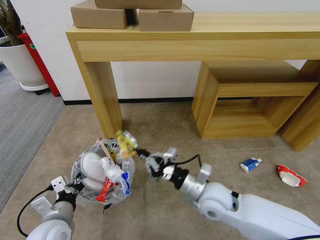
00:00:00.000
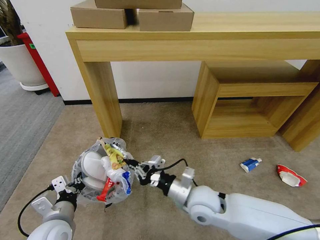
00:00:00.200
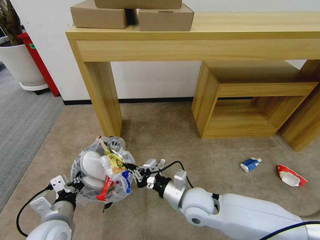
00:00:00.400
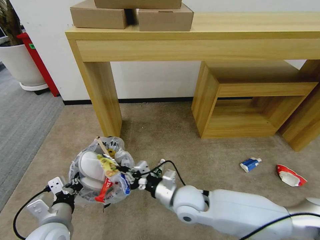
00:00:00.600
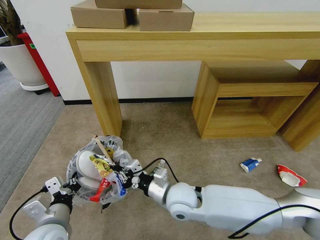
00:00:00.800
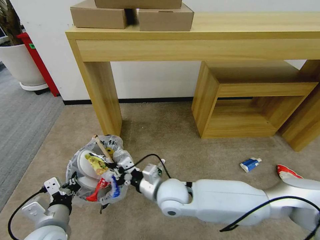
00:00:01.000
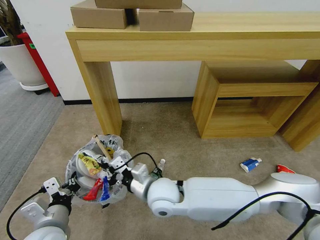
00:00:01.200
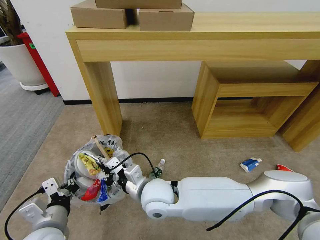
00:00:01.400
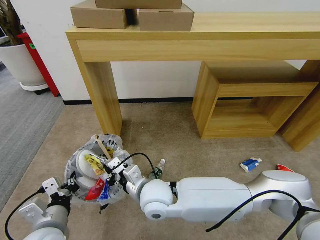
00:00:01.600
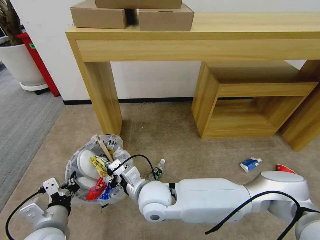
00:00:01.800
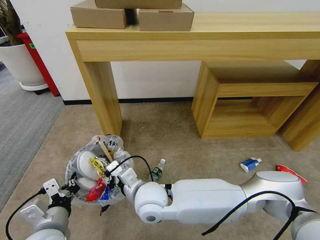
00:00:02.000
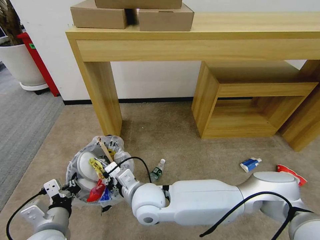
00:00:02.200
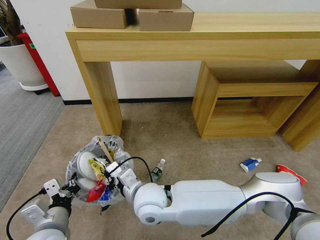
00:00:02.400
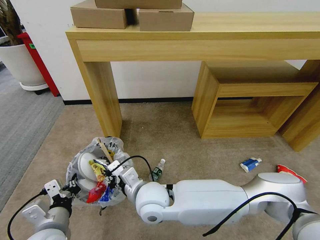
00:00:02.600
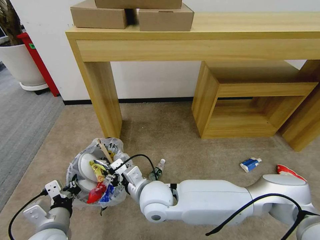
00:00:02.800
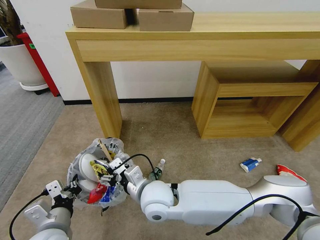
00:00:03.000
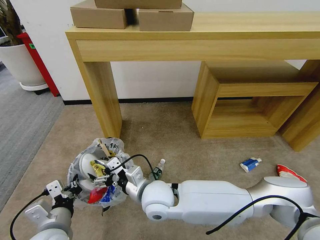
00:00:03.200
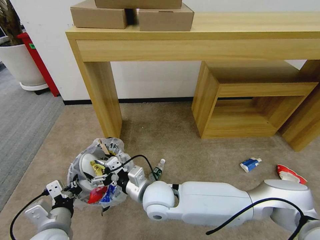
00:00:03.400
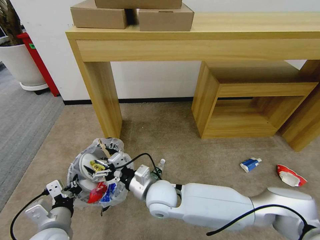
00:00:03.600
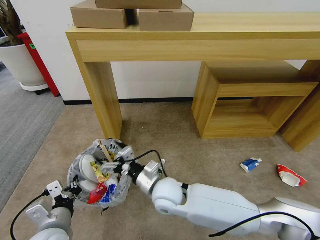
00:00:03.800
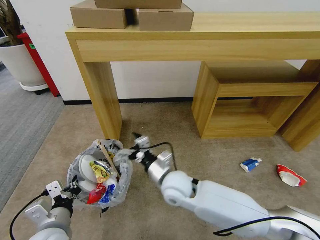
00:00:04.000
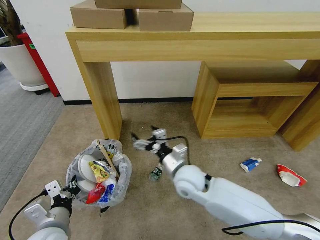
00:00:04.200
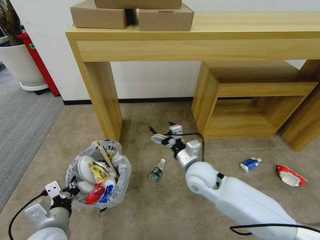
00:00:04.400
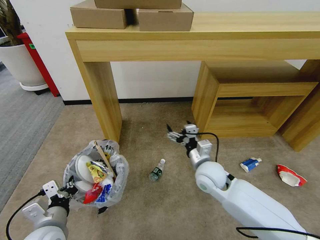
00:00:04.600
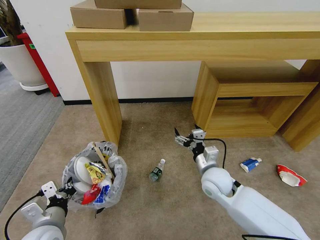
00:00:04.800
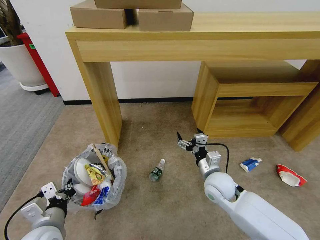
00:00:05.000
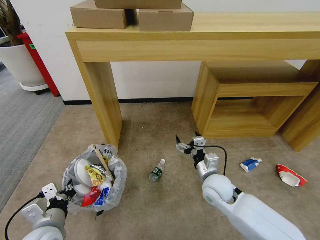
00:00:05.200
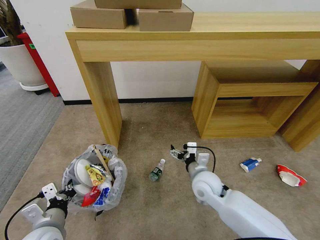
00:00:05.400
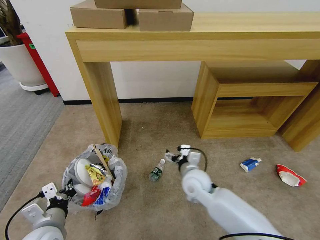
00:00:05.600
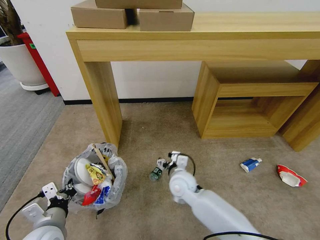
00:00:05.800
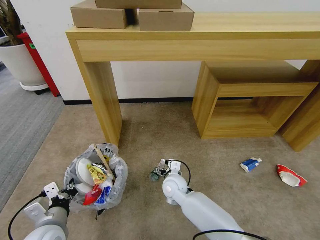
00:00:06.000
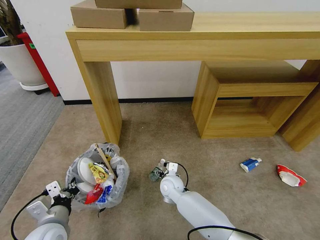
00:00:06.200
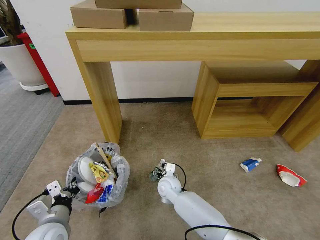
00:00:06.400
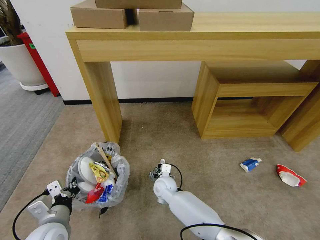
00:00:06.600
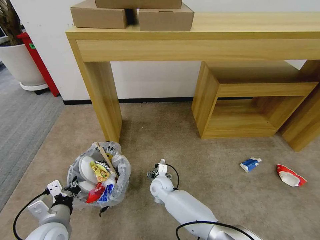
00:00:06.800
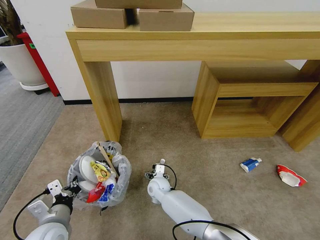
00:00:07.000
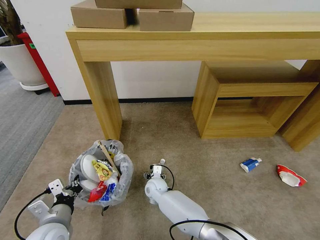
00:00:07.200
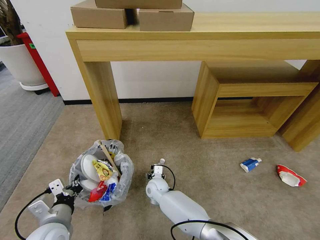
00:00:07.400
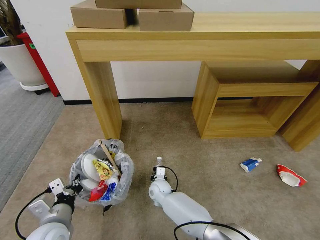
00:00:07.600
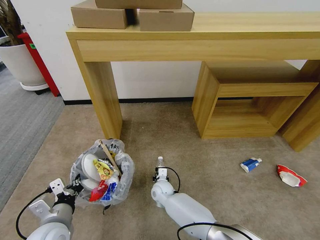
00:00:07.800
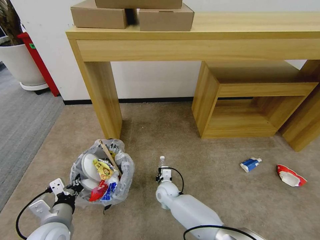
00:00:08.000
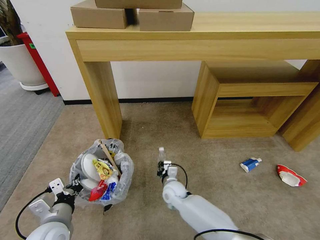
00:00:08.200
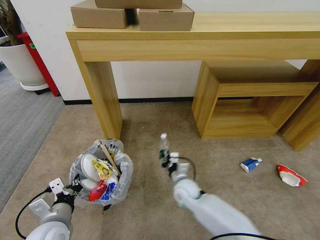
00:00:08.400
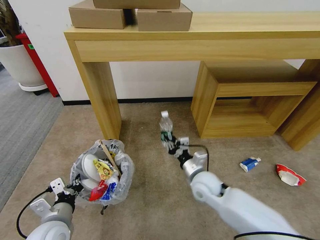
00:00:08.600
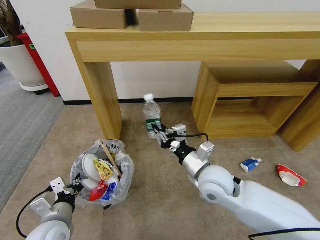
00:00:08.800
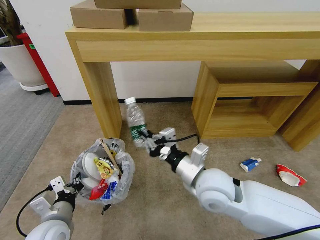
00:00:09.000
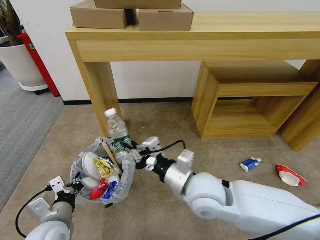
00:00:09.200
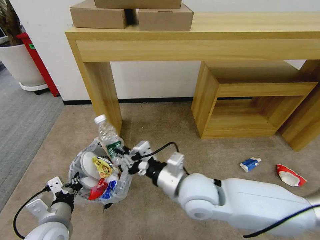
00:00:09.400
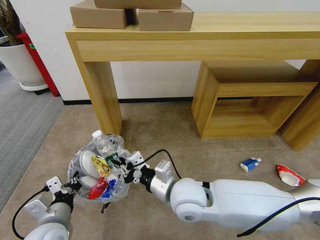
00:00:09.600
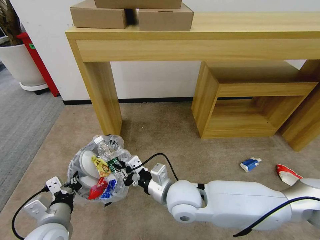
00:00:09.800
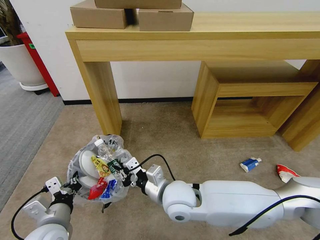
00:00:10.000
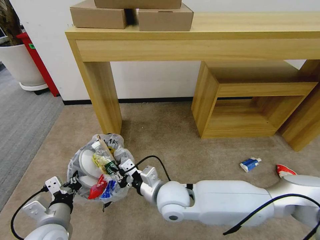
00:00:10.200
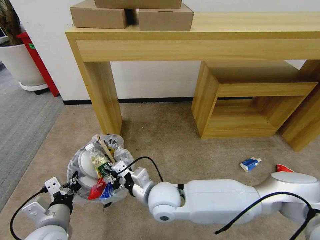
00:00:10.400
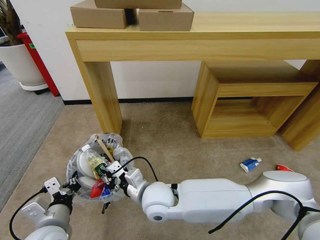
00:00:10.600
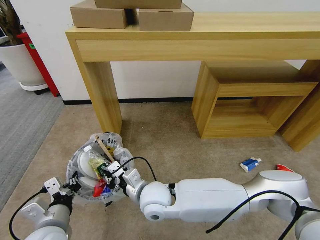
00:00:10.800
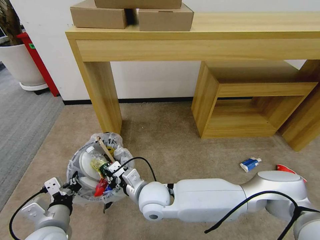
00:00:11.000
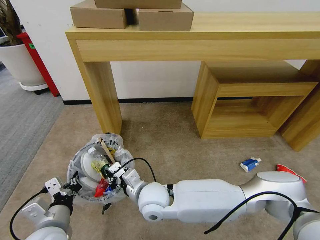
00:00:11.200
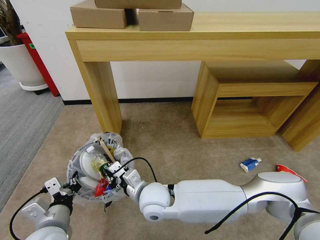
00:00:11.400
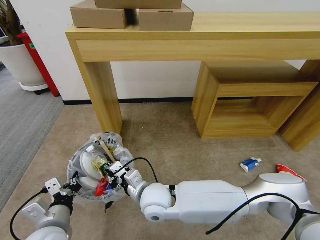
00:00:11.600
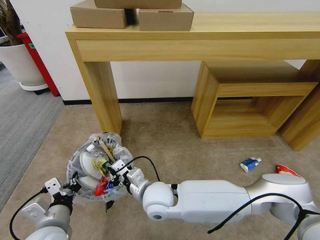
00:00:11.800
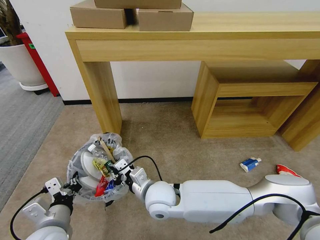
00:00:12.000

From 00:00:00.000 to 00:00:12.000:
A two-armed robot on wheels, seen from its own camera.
Task of the whole recording: Pick up the trash bin and place the garbage on the floor into it.
From 00:00:00.000 to 00:00:01.600: The right gripper moves to the left, about 15 cm.
From 00:00:01.600 to 00:00:03.000: The right gripper opens its fingers.
From 00:00:03.000 to 00:00:04.400: The right gripper goes some 15 cm to the right and forward.
From 00:00:04.400 to 00:00:06.000: The right gripper moves downward and to the left, some 15 cm.
From 00:00:06.000 to 00:00:07.600: The right gripper heads downward and to the left, covering about 10 cm, and closes its fingers.
From 00:00:07.600 to 00:00:09.000: The right gripper goes about 30 cm upward and to the right, and closes up.
From 00:00:09.000 to 00:00:10.400: The right gripper travels to the left and downward by some 15 cm.
From 00:00:10.400 to 00:00:12.000: The grippers stay close to where they were, moving slightly.

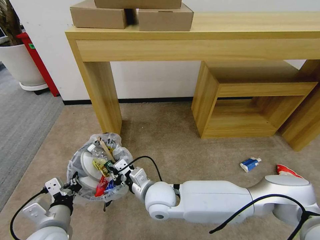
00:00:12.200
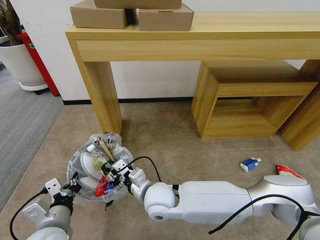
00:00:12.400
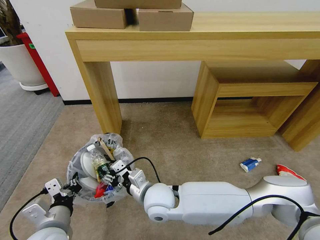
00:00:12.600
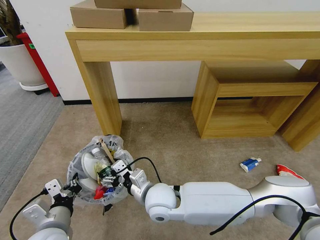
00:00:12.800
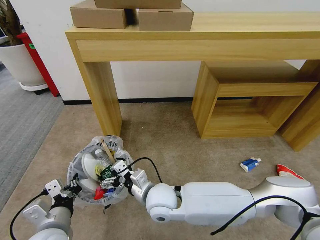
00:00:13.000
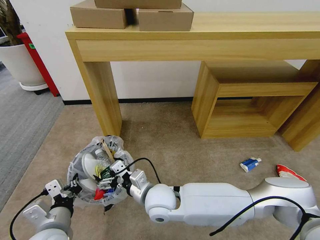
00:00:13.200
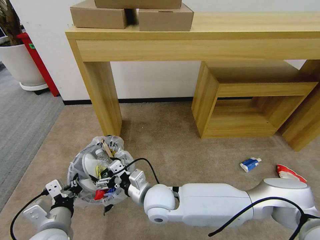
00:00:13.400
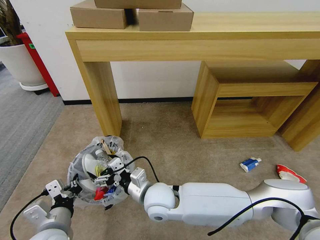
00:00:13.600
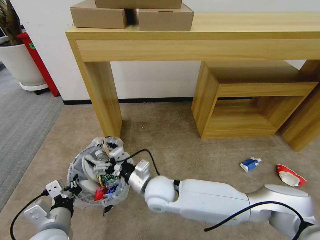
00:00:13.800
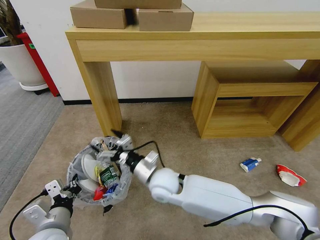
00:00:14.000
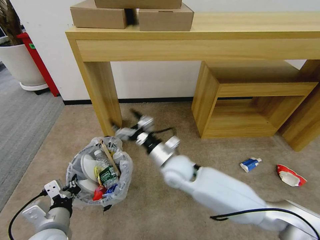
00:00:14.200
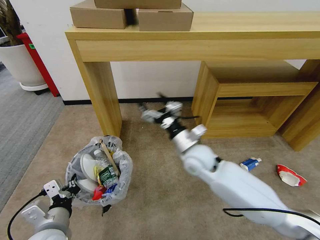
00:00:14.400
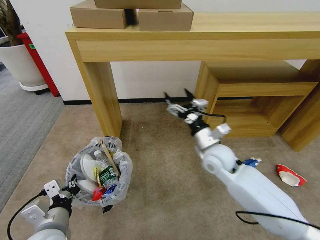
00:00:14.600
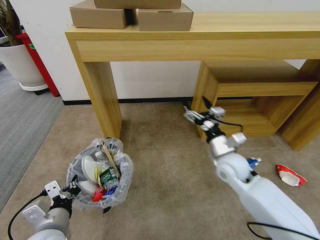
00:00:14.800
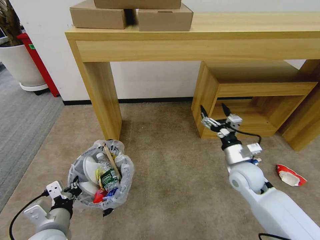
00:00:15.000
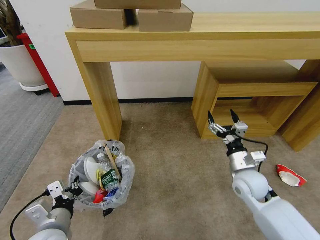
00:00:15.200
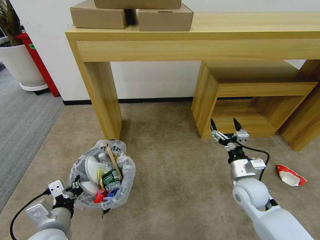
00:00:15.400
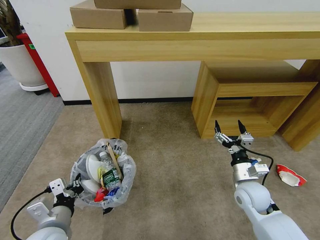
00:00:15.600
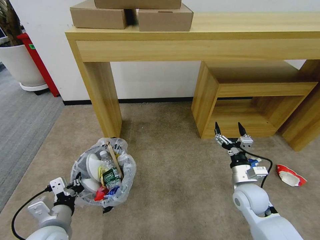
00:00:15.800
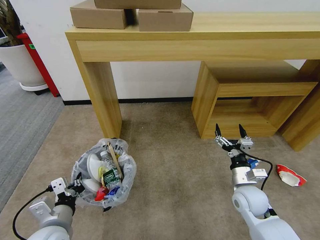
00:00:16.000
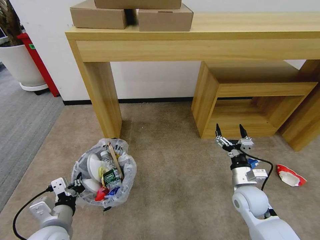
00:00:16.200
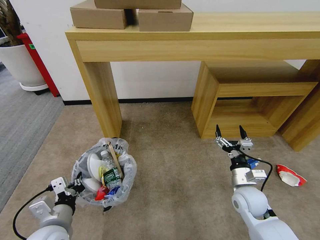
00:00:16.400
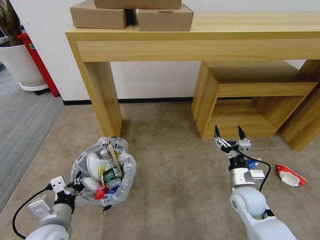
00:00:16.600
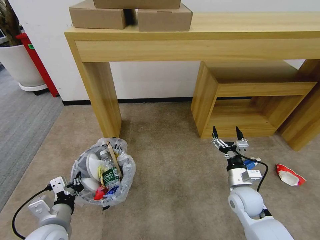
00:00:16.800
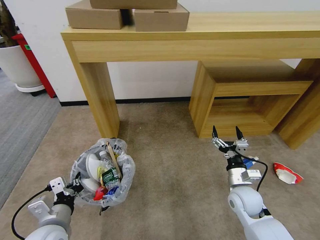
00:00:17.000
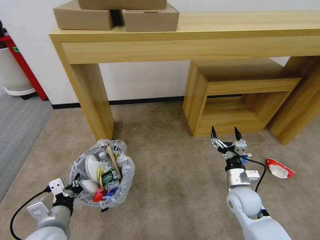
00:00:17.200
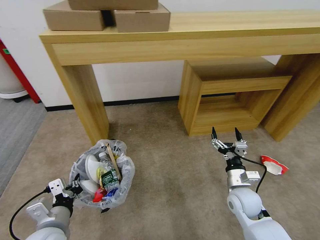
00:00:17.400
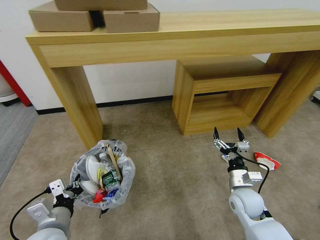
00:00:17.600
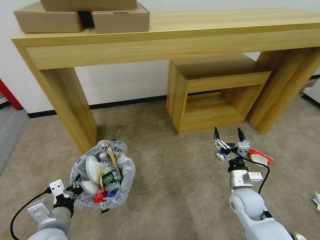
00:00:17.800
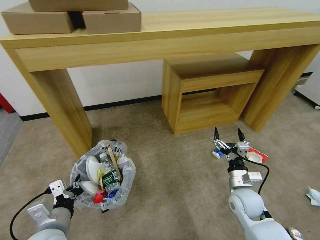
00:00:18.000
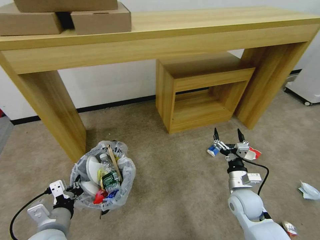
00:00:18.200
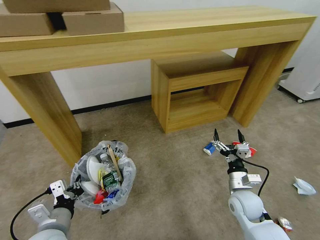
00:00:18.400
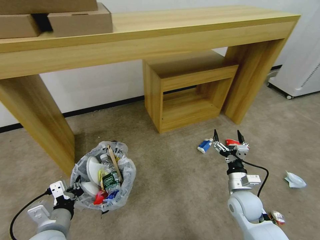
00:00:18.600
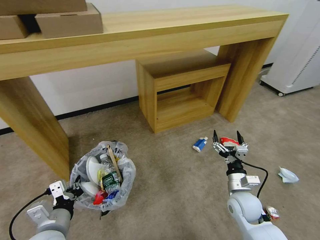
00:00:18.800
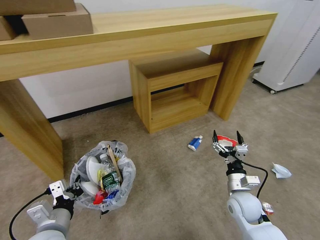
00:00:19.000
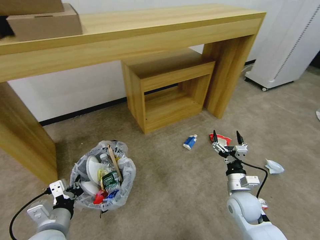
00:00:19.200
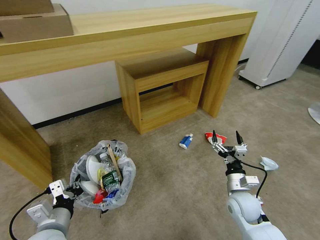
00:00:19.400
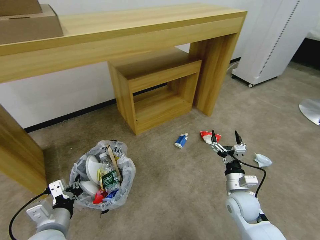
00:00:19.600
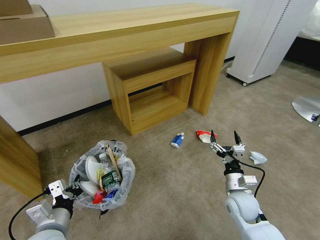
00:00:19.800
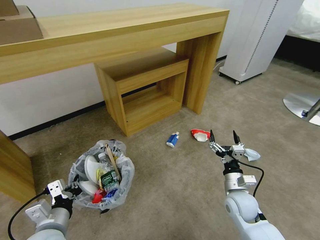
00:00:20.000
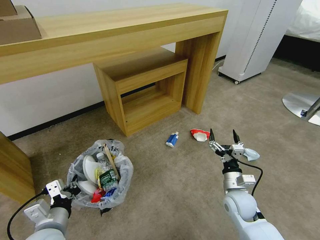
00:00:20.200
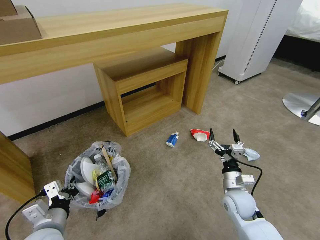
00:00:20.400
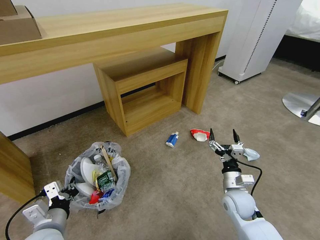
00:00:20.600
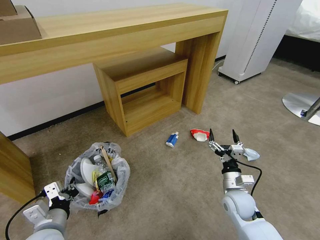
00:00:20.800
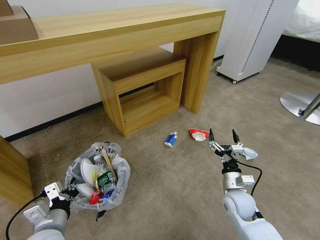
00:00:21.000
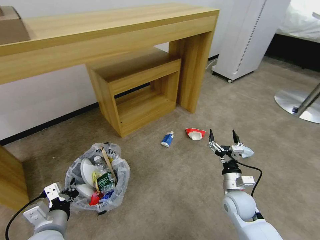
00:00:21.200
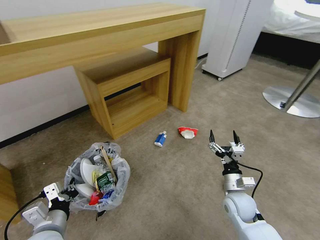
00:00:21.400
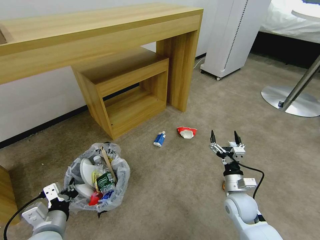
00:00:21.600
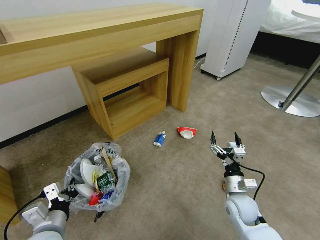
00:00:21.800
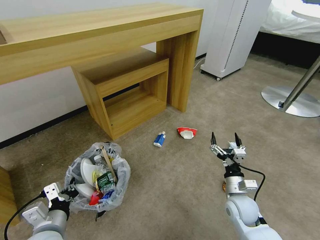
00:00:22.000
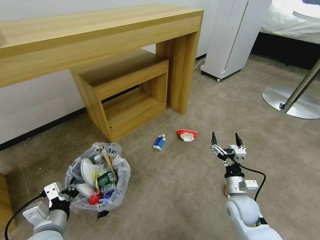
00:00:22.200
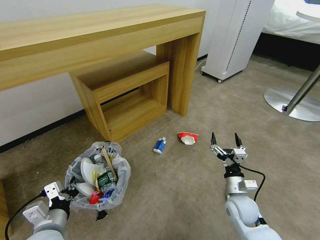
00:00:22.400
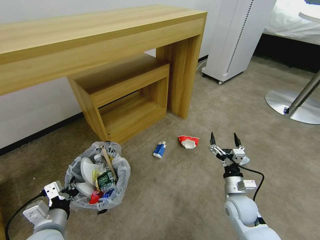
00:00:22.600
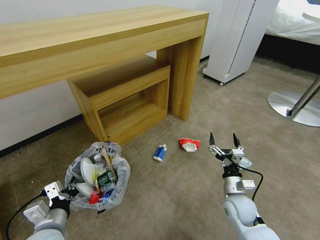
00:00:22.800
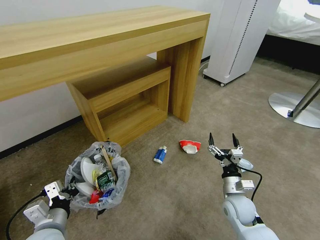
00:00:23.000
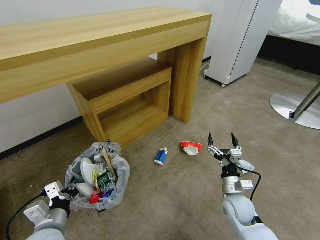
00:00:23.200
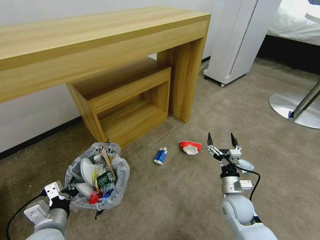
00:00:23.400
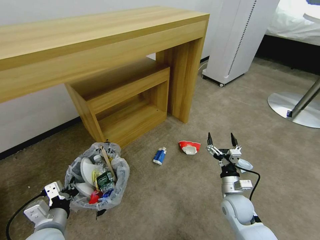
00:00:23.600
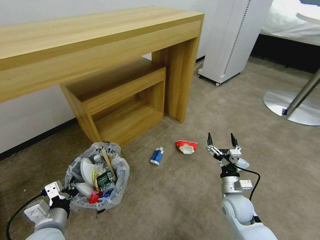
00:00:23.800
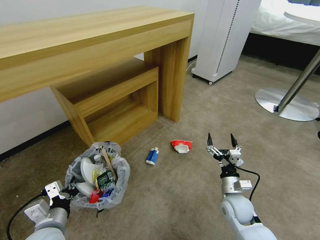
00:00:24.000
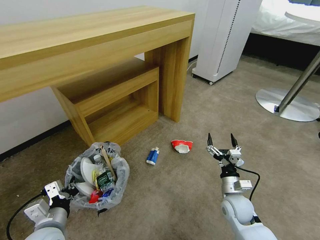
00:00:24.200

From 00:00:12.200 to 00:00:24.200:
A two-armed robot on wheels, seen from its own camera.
Task of the whole recording: Pick up the trash bin and place the garbage on the floor into it.
From 00:00:12.200 to 00:00:13.800: The right gripper opens up.
From 00:00:13.800 to 00:00:15.200: The right gripper is displaced to the right by approximately 30 cm.
From 00:00:15.200 to 00:00:16.600: The right gripper goes about 5 cm downward.
From 00:00:22.600 to 00:00:24.200: The grippers stay close to where they were, moving slightly.
